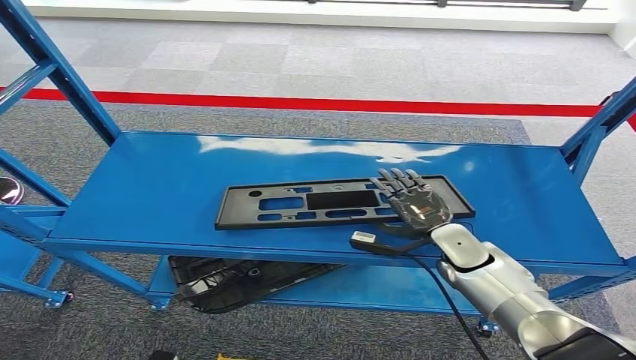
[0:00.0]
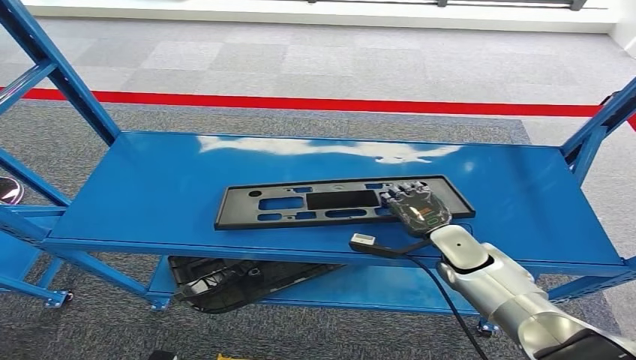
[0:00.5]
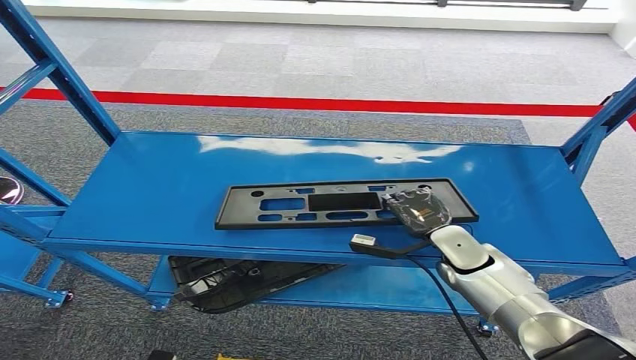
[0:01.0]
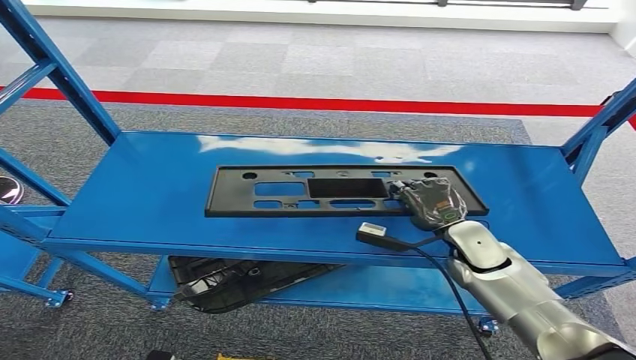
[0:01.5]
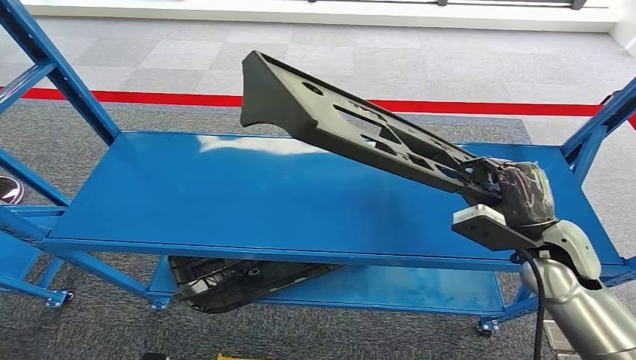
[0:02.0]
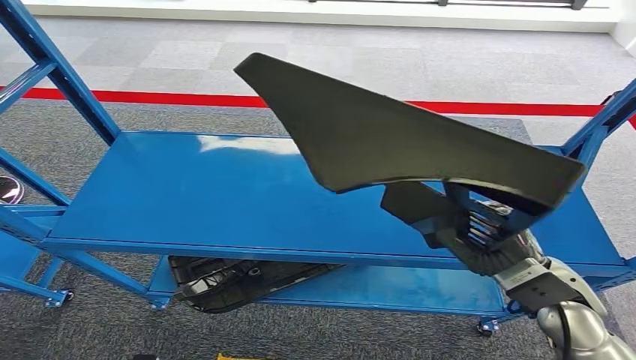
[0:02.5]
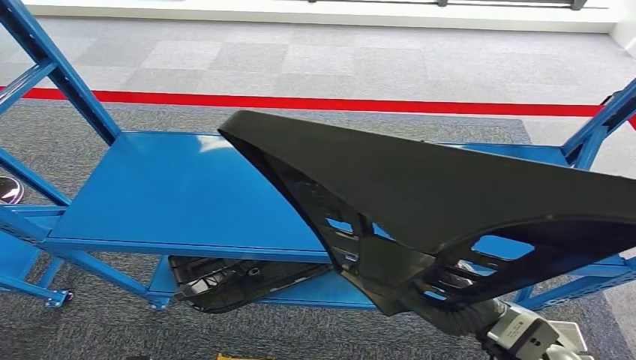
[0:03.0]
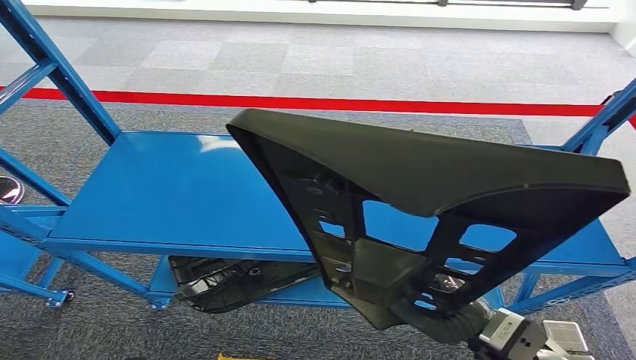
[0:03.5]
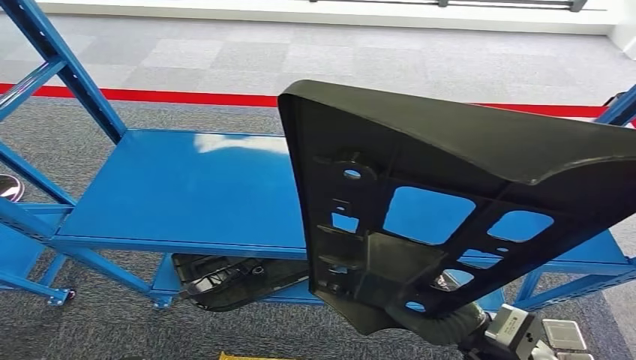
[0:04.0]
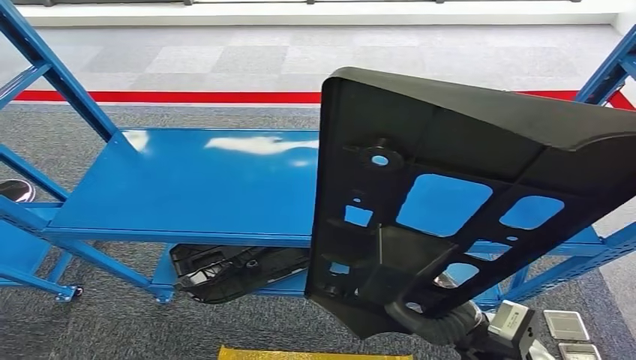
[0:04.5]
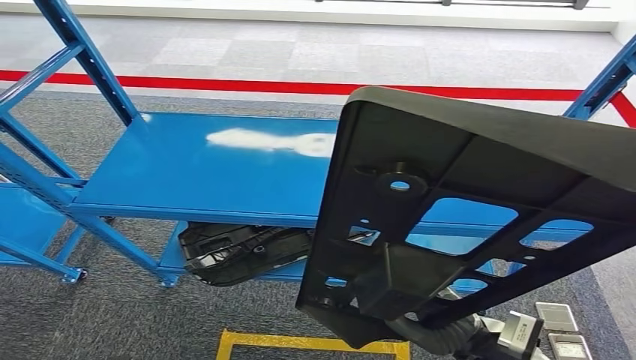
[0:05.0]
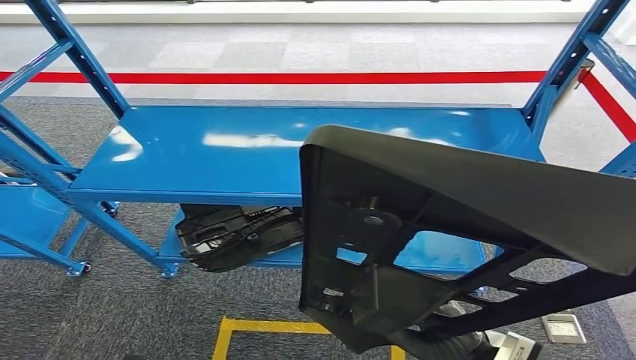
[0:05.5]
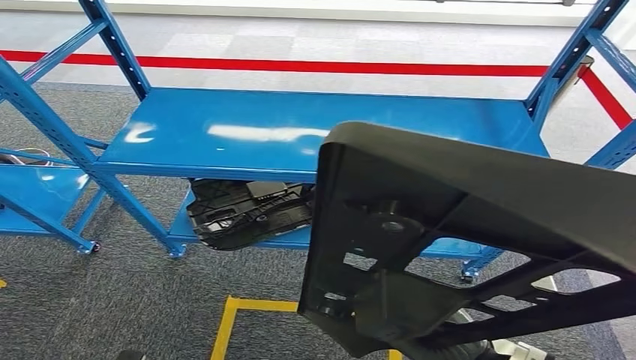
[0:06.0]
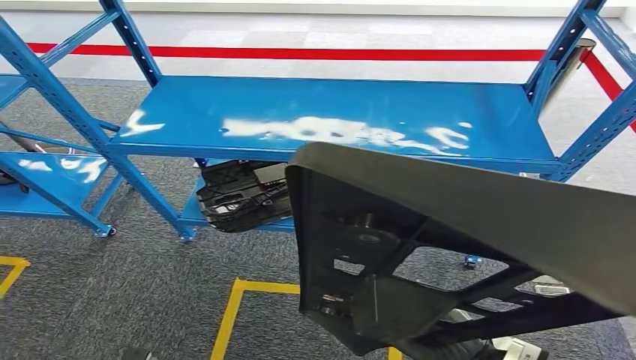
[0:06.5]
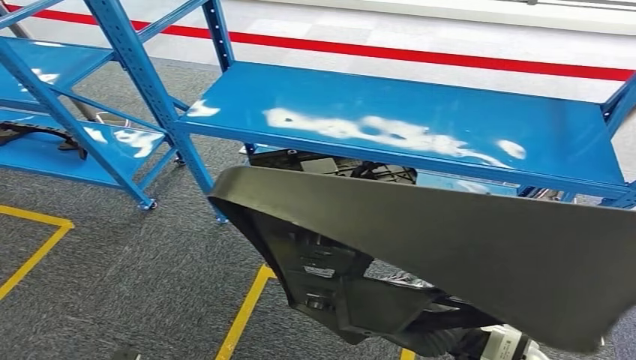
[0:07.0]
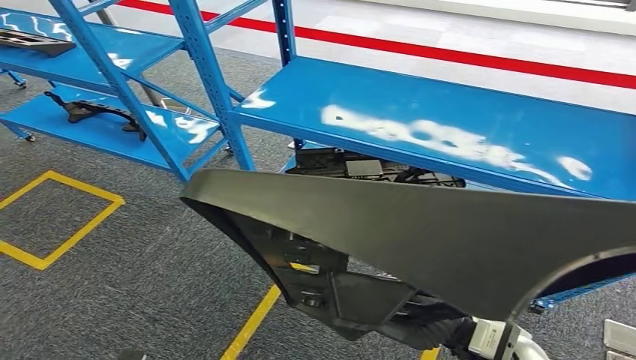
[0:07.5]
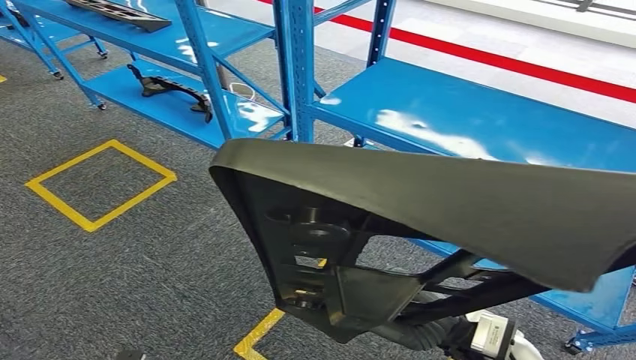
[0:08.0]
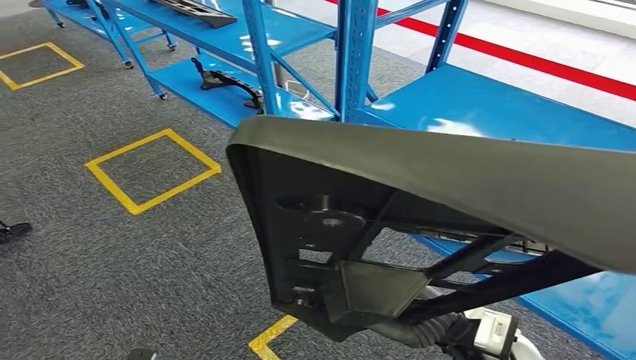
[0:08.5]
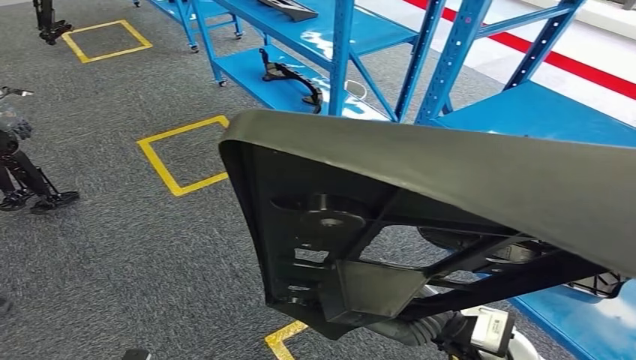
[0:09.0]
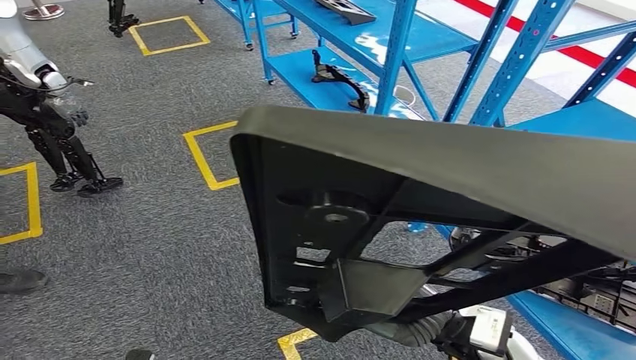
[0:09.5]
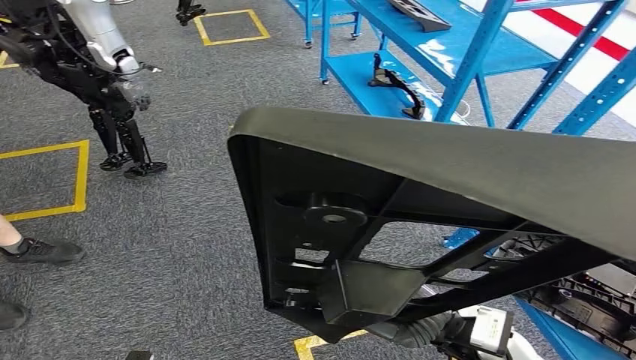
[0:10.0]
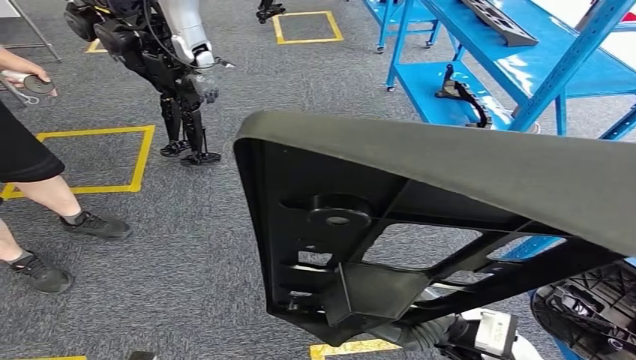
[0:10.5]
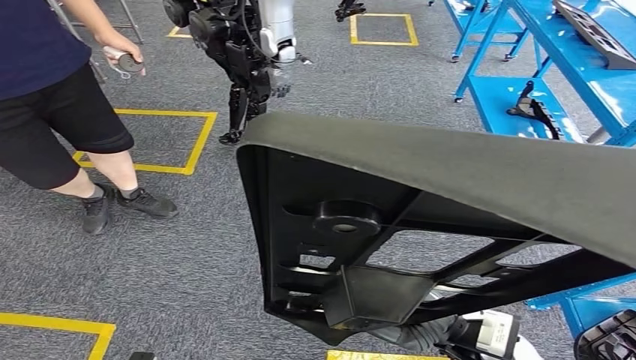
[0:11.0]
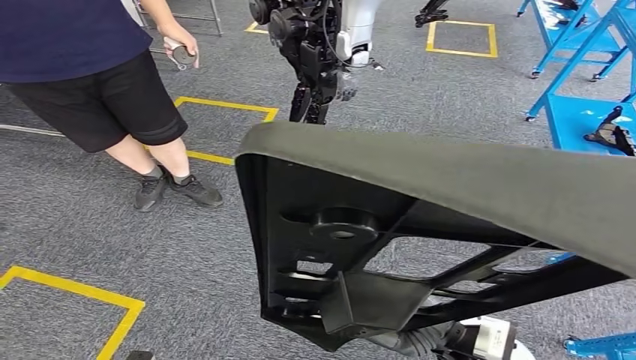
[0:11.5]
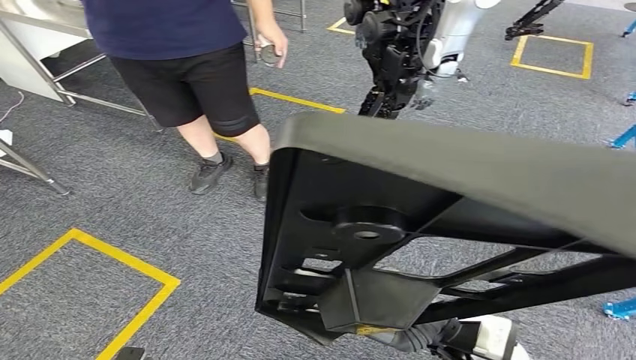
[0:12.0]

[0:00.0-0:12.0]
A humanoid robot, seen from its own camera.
Step, 0:00.0 to 0:04.5: Pick up the large material from the shelf.

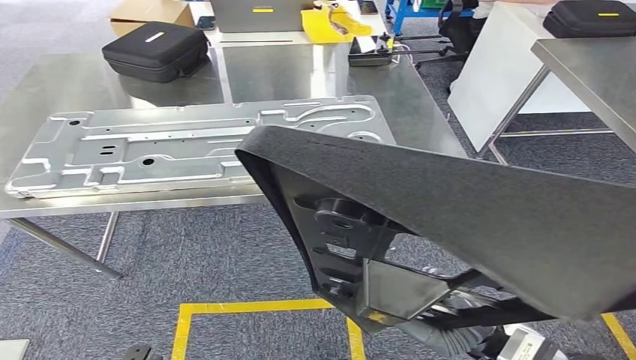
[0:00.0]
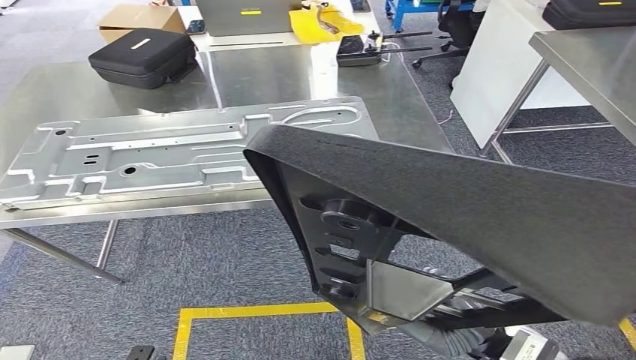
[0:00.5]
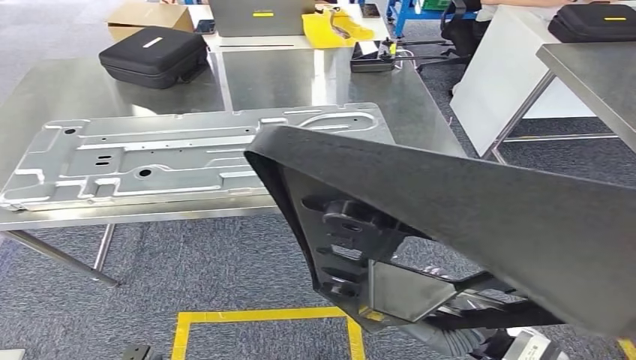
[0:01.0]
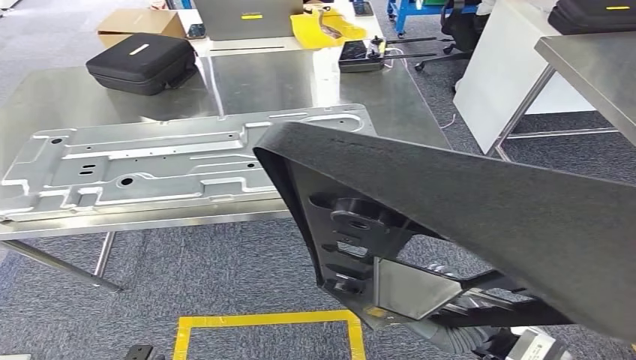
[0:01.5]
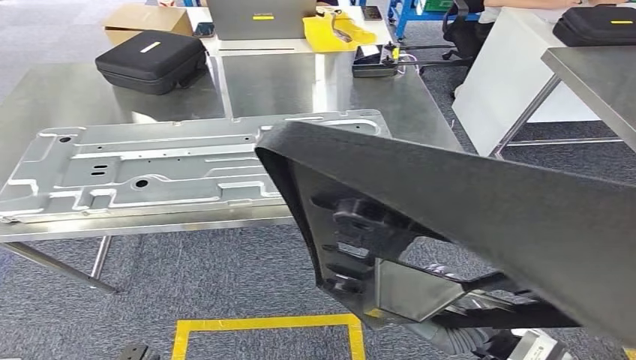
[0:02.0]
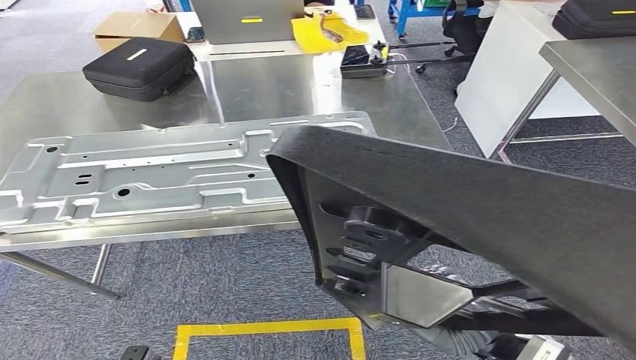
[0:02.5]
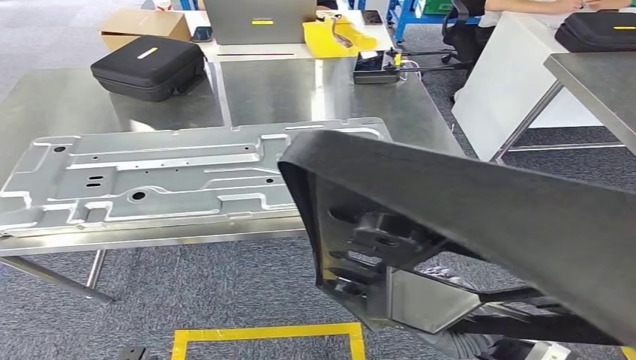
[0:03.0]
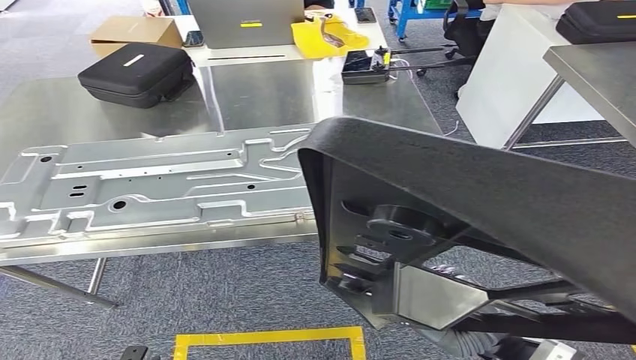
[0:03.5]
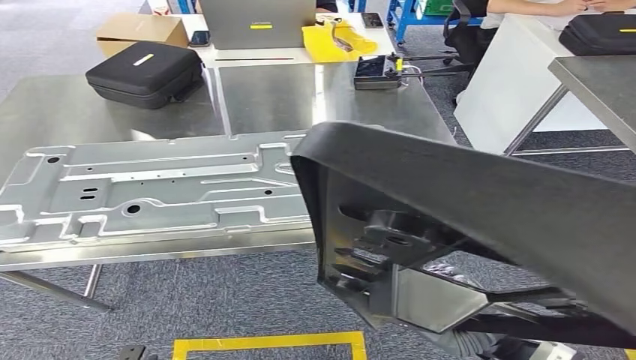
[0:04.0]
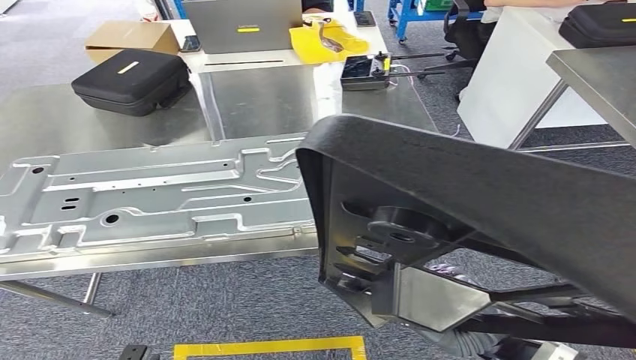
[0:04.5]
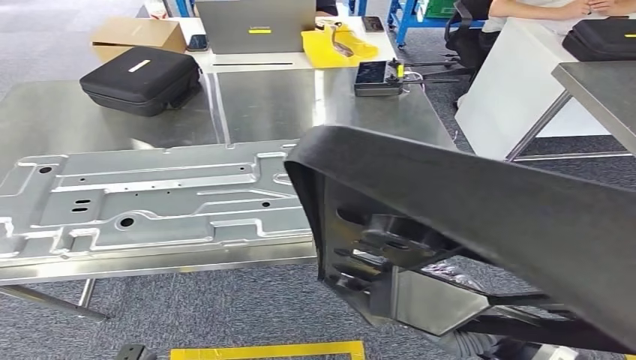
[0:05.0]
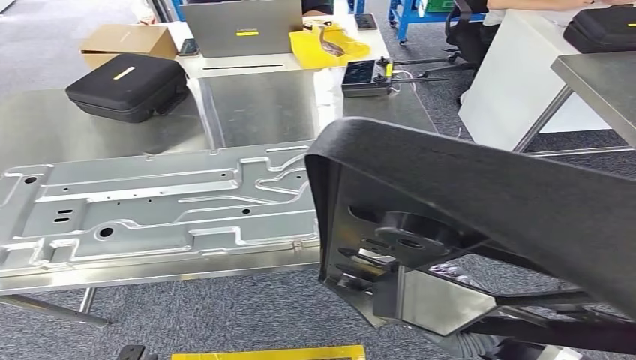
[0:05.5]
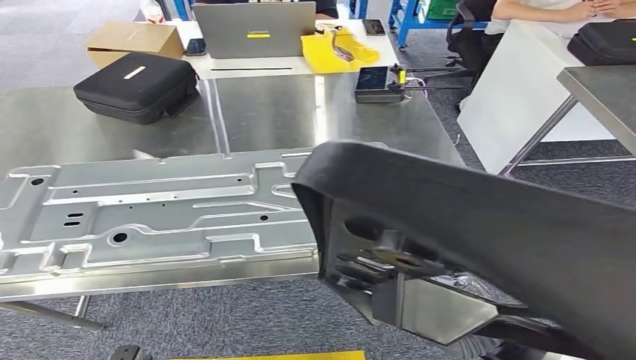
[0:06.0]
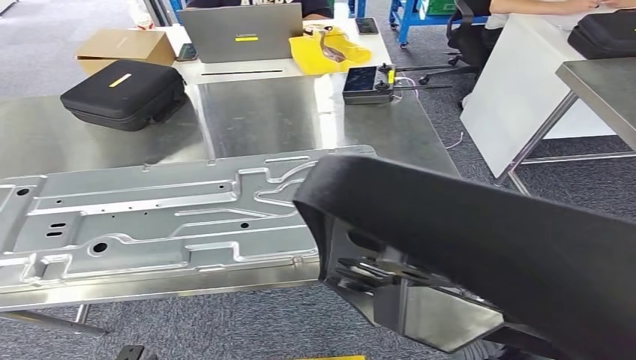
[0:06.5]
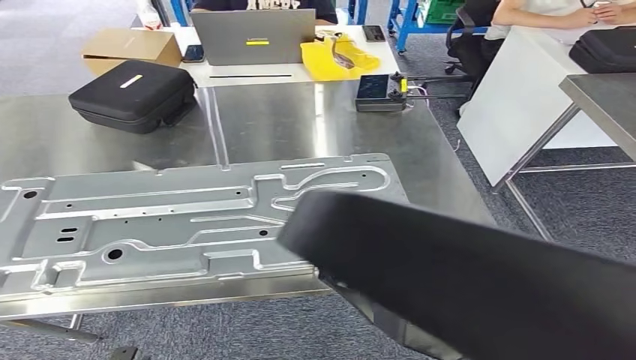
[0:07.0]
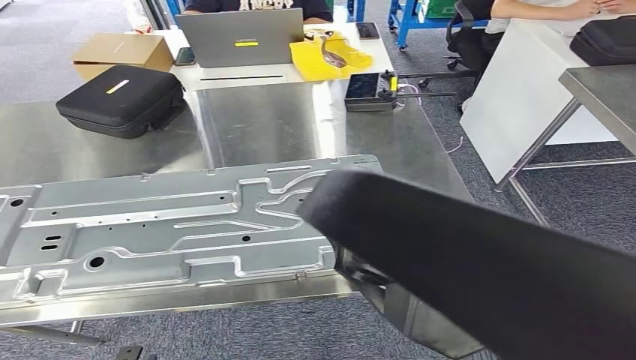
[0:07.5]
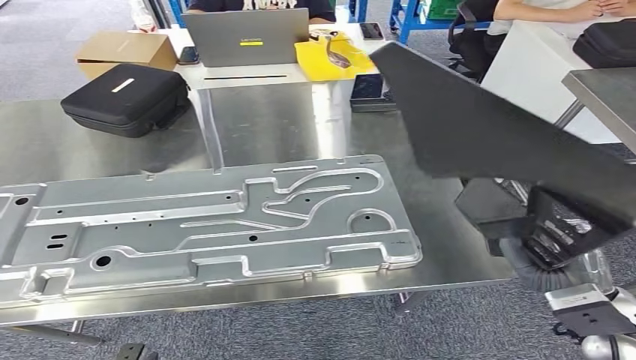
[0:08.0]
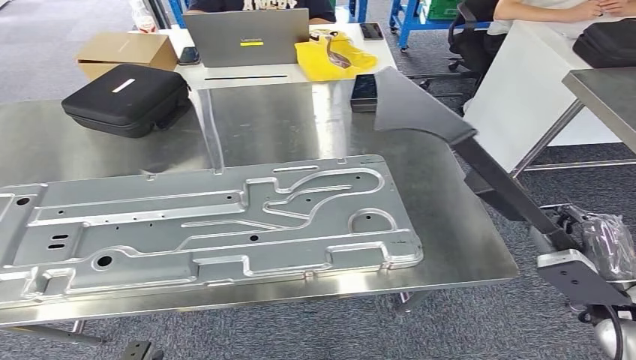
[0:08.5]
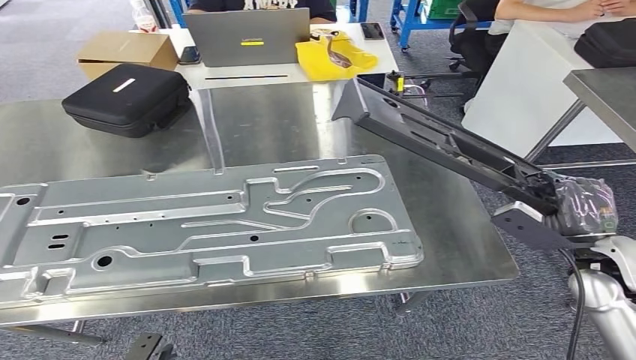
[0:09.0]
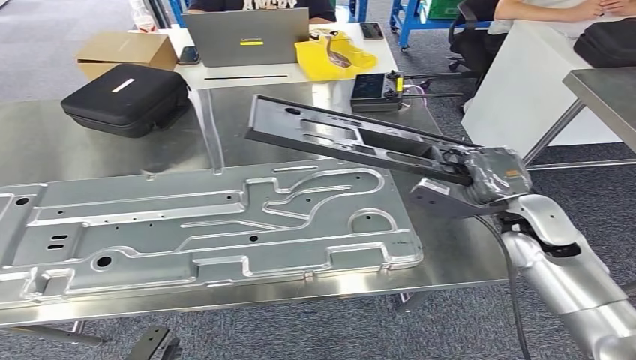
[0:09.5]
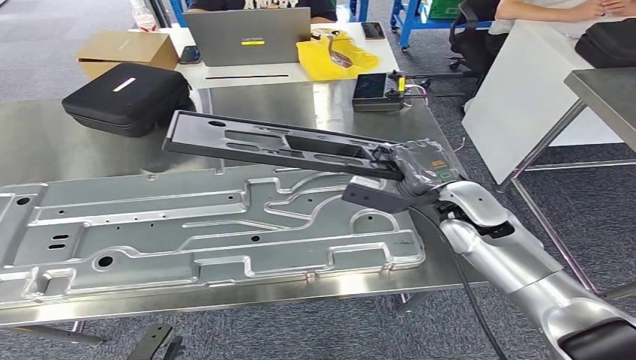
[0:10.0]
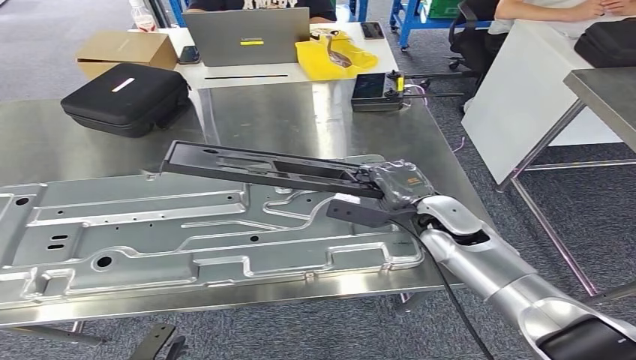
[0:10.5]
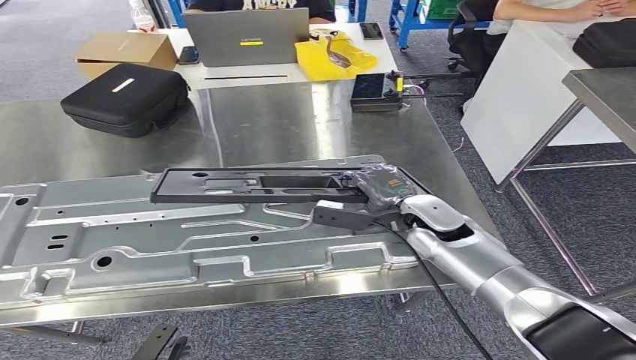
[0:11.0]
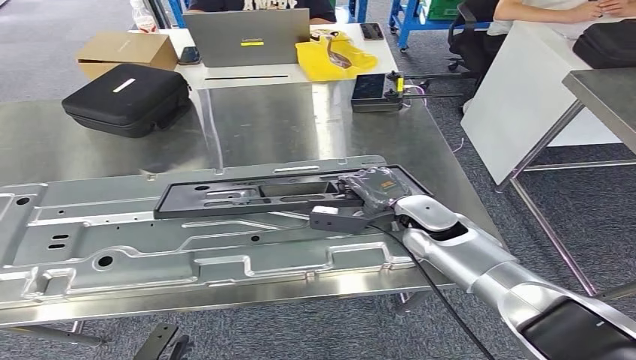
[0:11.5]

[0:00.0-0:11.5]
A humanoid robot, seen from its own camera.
Step, 0:00.0 to 0:07.5: Move the large material to the workbench.
